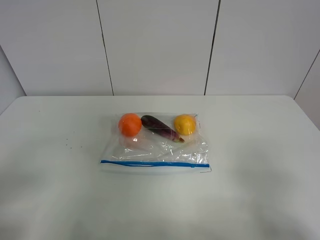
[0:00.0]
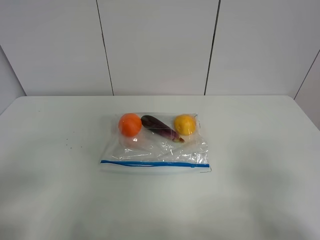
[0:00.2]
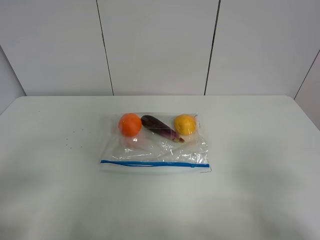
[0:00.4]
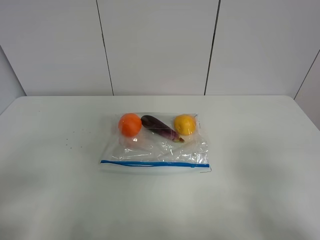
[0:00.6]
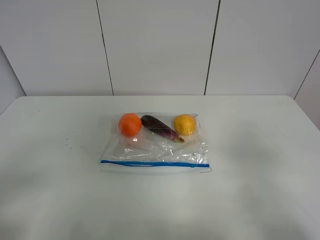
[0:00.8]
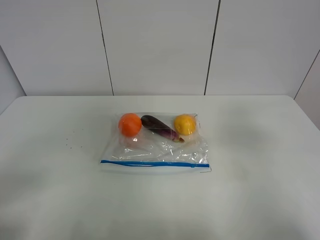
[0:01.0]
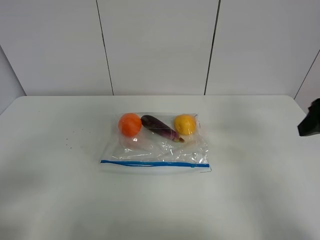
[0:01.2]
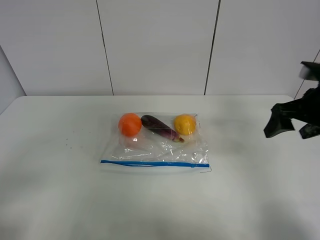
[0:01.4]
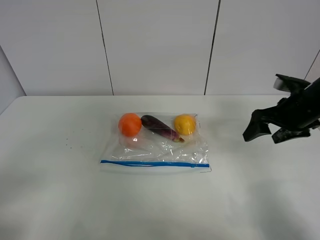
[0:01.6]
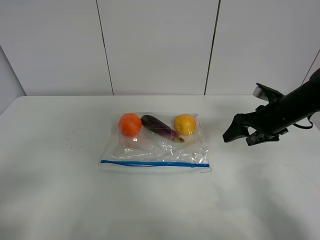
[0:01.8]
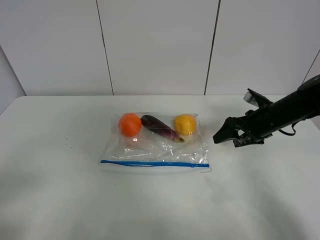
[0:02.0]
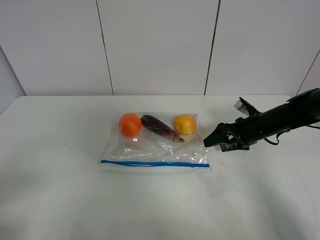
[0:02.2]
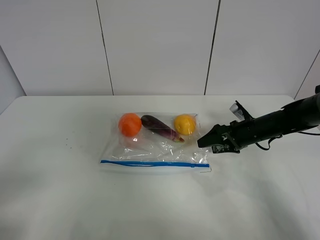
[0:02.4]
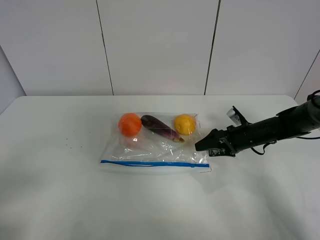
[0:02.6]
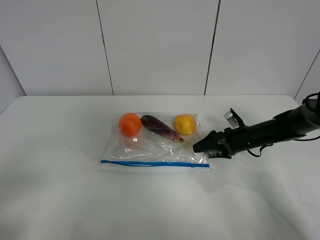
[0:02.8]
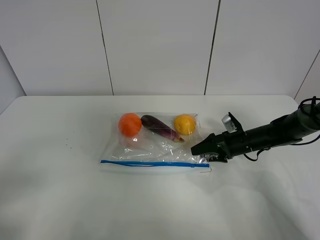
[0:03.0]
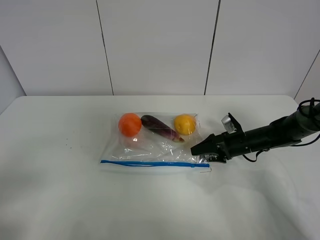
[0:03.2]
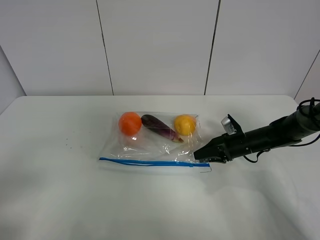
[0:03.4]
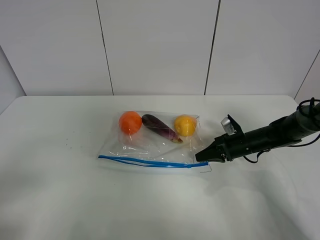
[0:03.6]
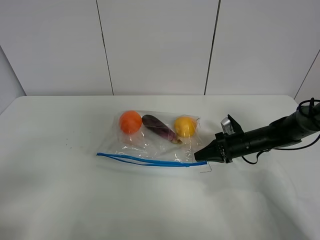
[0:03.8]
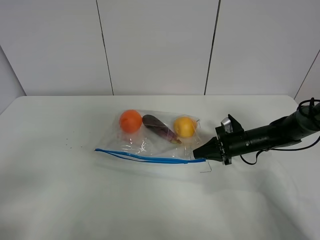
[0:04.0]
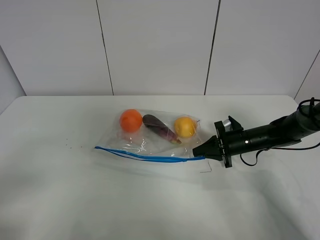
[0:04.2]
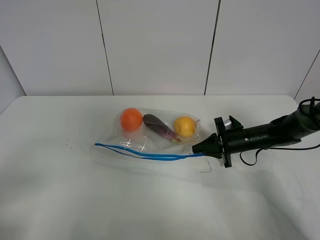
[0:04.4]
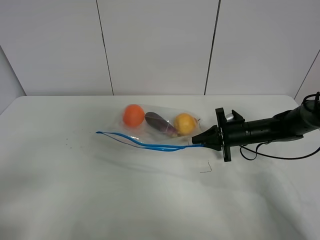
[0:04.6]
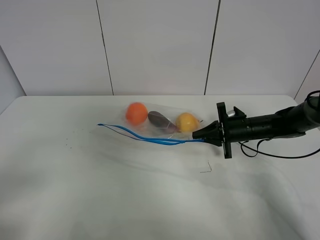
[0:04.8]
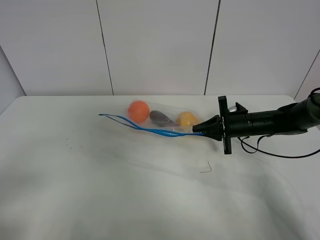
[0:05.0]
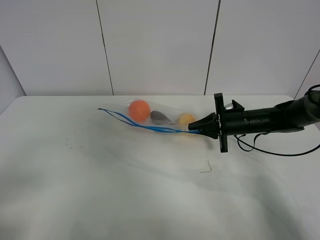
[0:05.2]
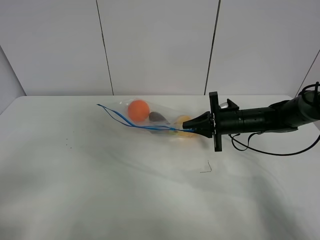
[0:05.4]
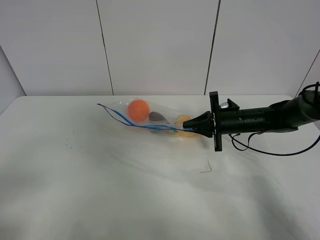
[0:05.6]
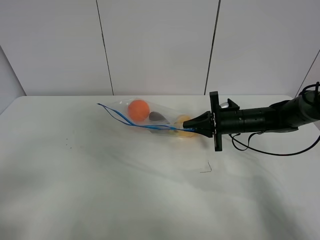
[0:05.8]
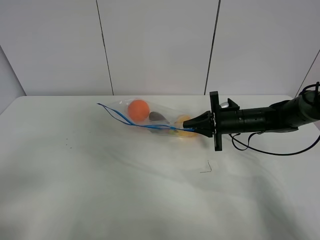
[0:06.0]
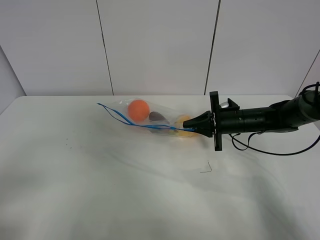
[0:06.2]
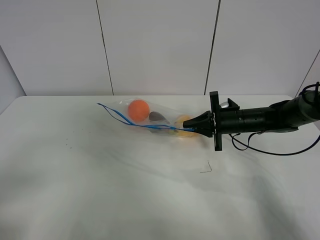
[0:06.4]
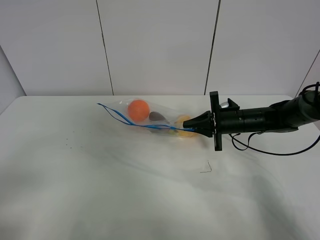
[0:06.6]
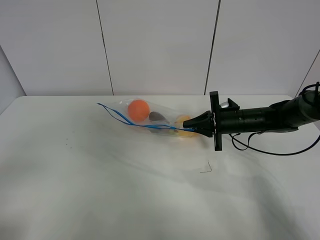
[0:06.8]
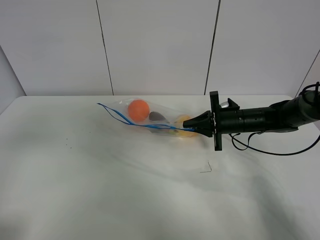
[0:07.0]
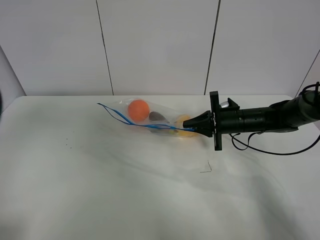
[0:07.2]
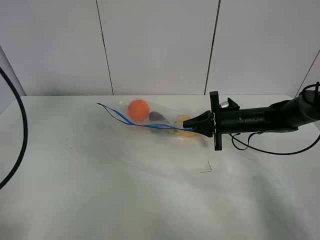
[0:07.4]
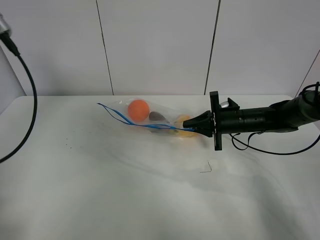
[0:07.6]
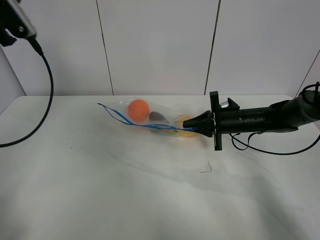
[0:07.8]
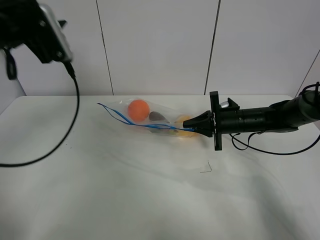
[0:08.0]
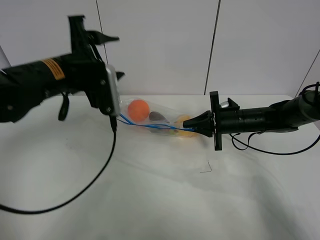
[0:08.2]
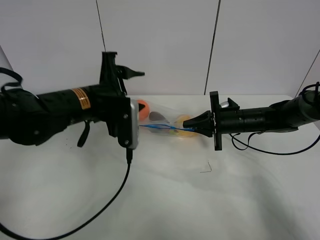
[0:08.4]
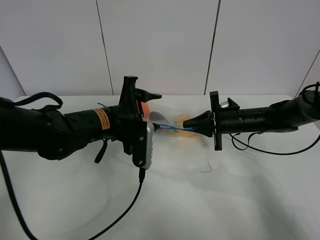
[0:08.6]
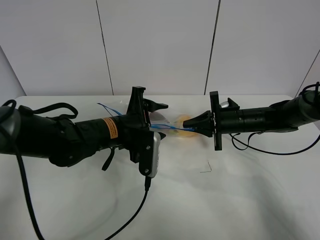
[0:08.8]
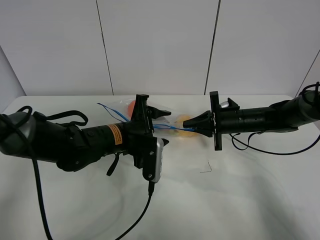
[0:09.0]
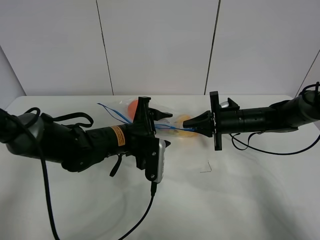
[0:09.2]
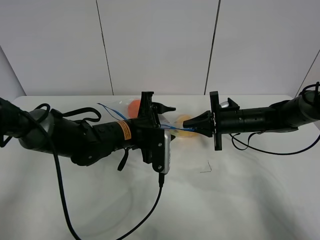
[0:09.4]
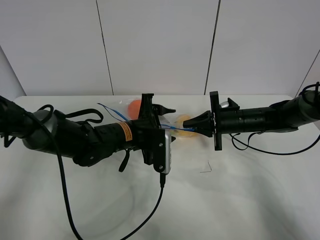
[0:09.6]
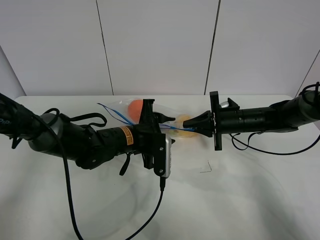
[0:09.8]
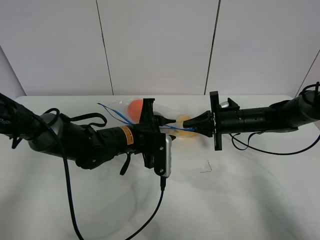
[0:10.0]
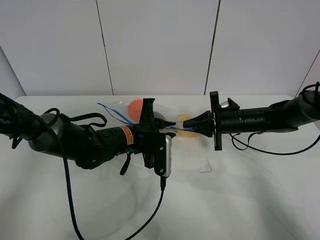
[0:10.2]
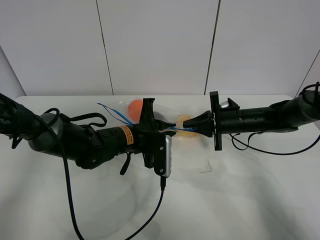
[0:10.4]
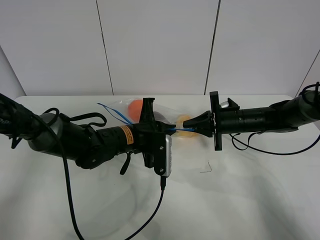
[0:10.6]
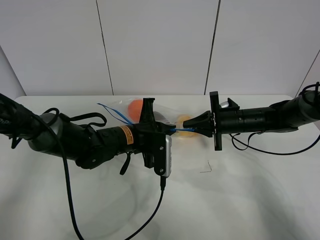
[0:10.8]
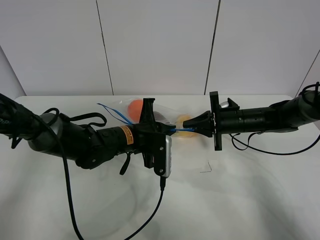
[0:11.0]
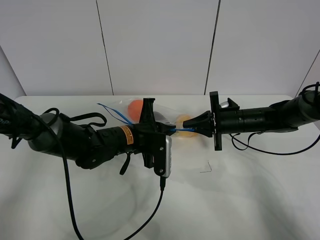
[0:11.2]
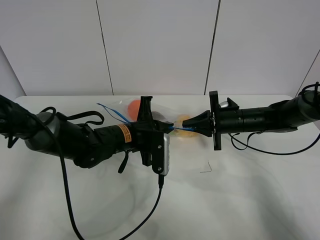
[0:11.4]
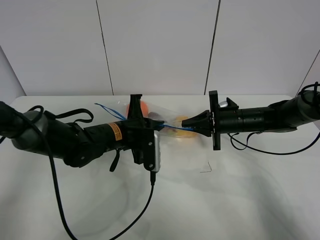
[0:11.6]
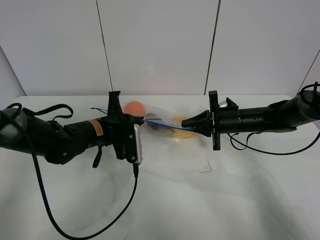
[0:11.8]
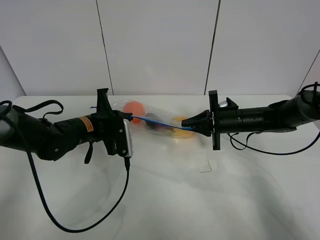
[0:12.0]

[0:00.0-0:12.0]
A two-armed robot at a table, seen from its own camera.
Step, 0:00.0 to 0:03.6: Grasp the fruit bag with right gripper.
Step, 0:03.8 to 0:05.6: Lift the fruit bag with your right gripper.
0:00.0 to 0:01.6: The right gripper travels forward by about 30 cm.
0:01.6 to 0:03.0: The right gripper shifts about 15 cm downward.
0:03.0 to 0:04.4: The right gripper closes.
0:04.4 to 0:06.0: The right gripper is displaced upward by roughly 5 cm.
0:06.0 to 0:07.6: The left gripper is displaced forward and upward by approximately 30 cm.
0:07.6 to 0:09.0: The left gripper moves downward and to the right, roughly 35 cm.
0:09.0 to 0:10.4: The left gripper closes its fingers.
0:10.4 to 0:12.0: The left gripper heads to the left, covering roughly 10 cm.

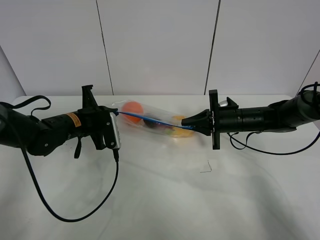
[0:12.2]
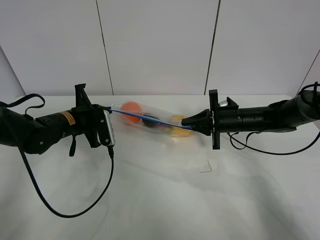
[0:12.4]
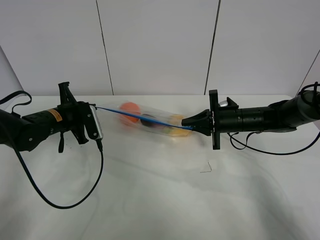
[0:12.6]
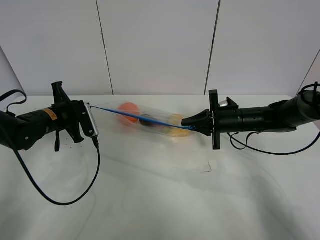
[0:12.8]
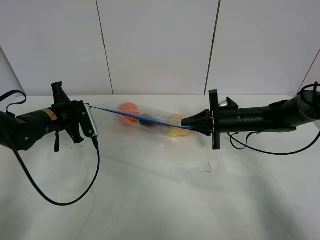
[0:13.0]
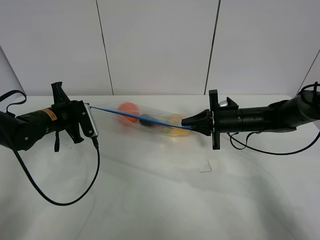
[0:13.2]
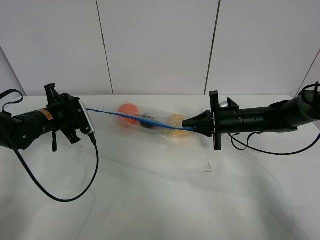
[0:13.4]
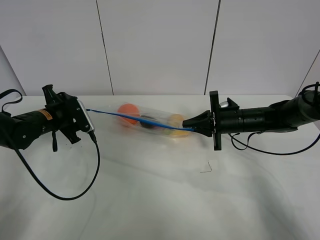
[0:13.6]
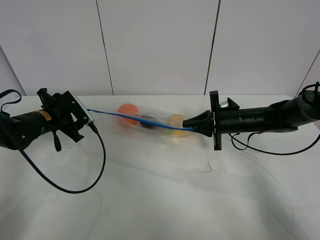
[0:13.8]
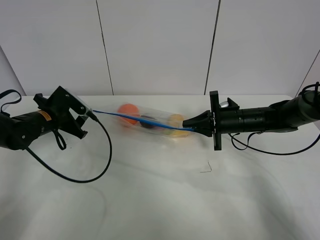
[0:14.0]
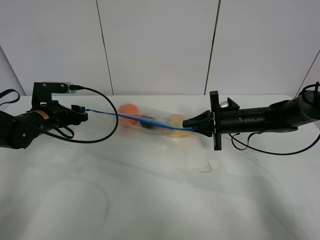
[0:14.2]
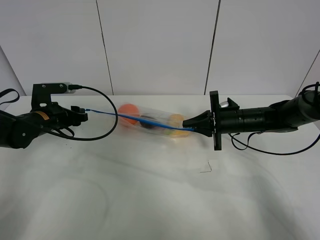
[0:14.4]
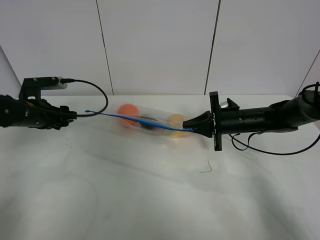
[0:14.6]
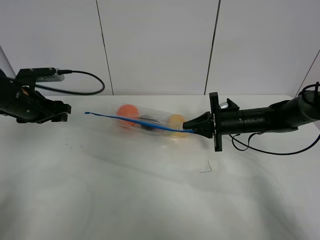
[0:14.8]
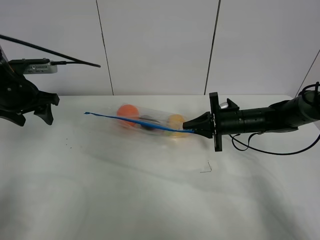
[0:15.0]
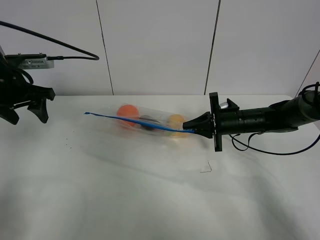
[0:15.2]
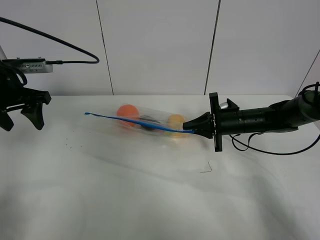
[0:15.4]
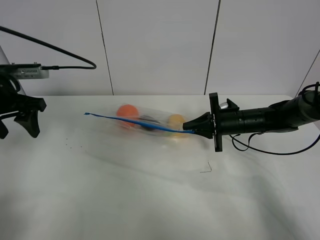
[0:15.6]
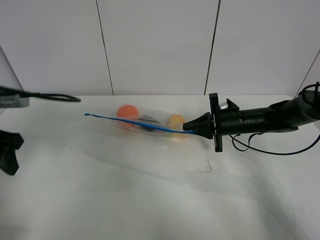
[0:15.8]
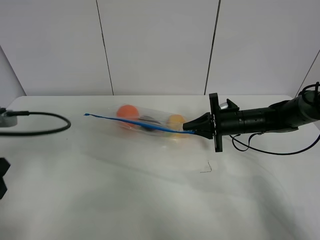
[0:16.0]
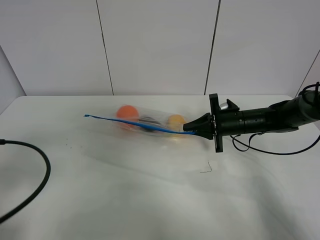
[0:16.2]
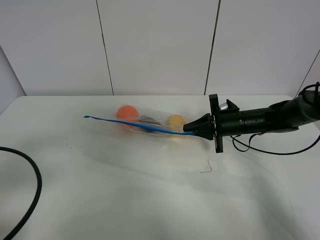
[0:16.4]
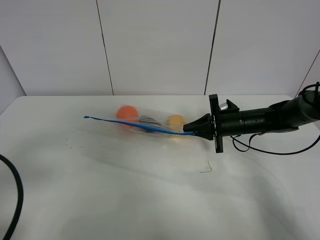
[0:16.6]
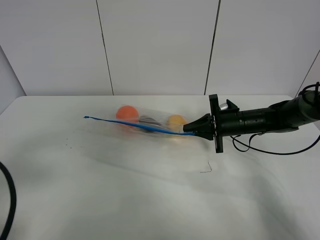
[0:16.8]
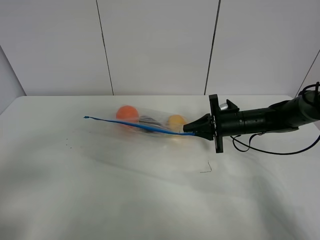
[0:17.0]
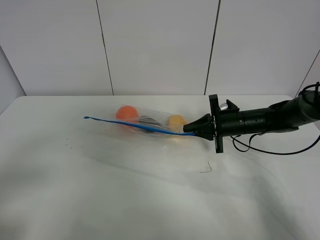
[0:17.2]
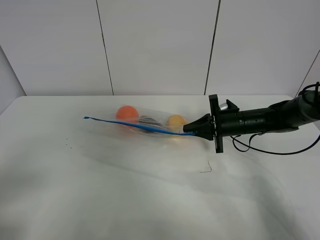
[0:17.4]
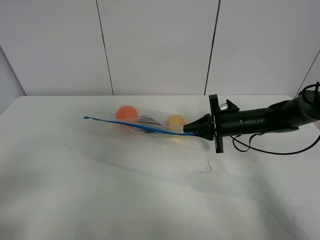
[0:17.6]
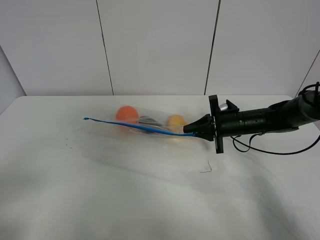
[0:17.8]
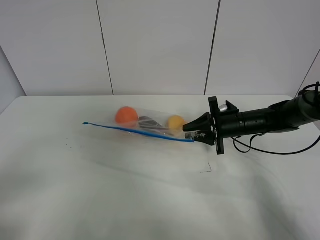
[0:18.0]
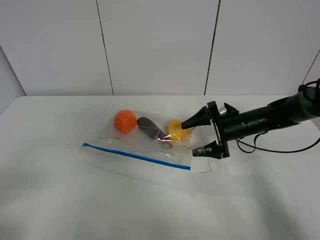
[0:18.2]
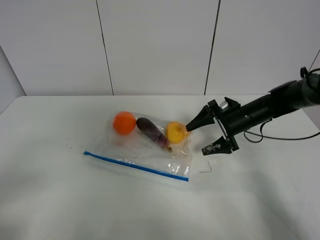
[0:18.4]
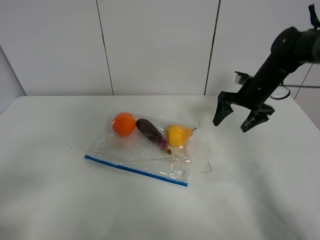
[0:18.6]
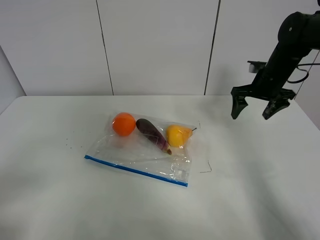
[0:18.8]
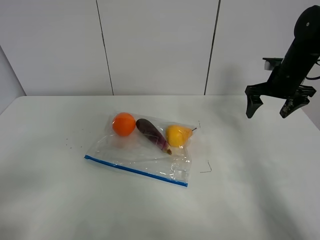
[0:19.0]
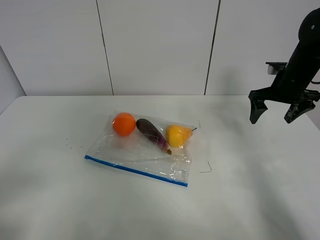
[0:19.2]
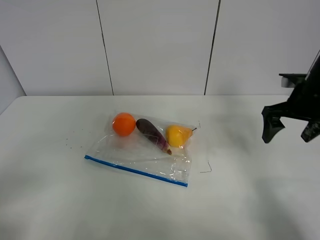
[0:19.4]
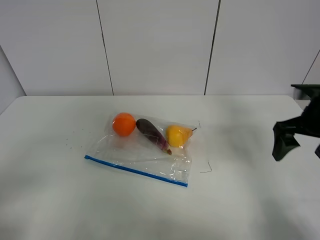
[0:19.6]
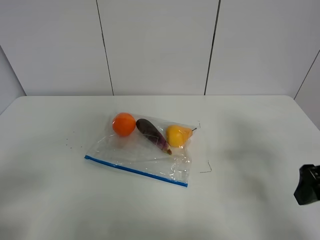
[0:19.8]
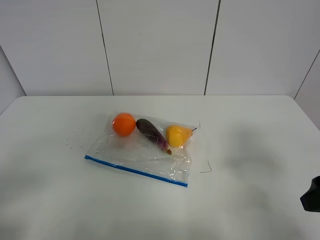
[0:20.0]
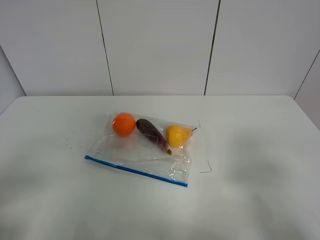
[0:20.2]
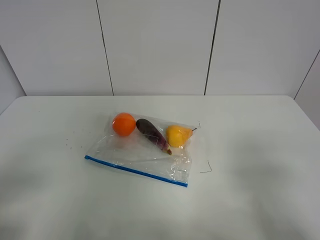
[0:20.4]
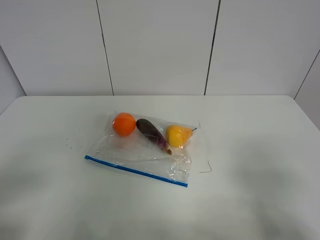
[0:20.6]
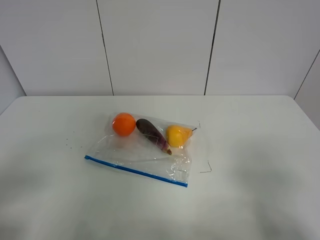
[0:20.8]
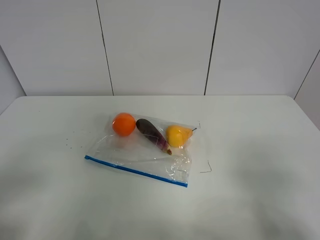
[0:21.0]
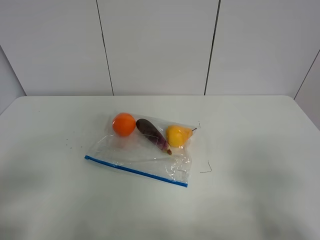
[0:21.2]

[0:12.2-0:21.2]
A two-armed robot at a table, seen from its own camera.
0:12.2 to 0:13.8: The left gripper travels to the left by some 10 cm, and opens its fingers.
0:13.8 to 0:15.2: The left gripper is displaced upward by about 15 cm.
0:15.2 to 0:16.6: The left gripper heads backward, covering roughly 25 cm.
0:16.6 to 0:18.2: The right gripper opens its fingers. Meanwhile the left gripper goes approximately 5 cm backward.
0:18.2 to 0:19.8: The right gripper heads backward, upward and to the right, covering some 25 cm.
0:19.8 to 0:21.2: The right gripper is displaced backward by approximately 15 cm.

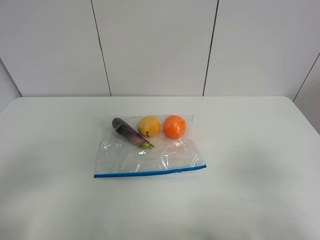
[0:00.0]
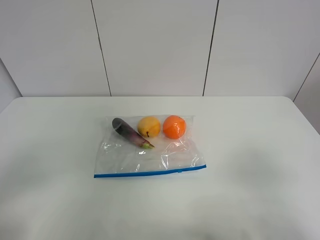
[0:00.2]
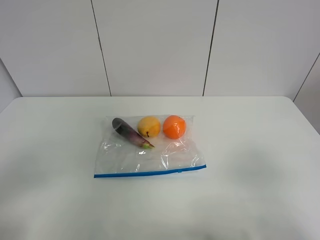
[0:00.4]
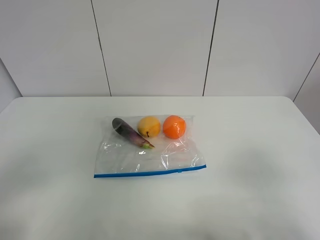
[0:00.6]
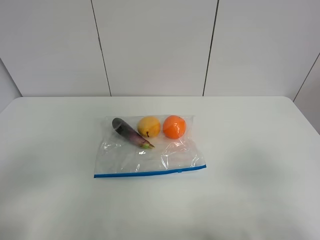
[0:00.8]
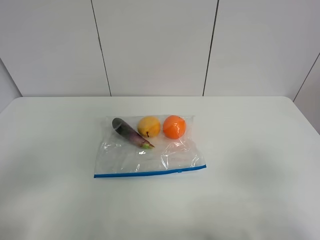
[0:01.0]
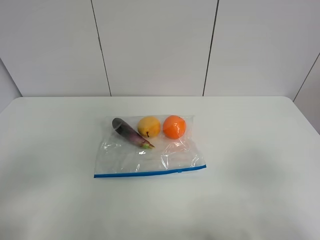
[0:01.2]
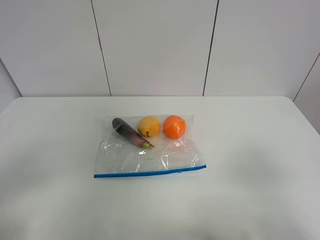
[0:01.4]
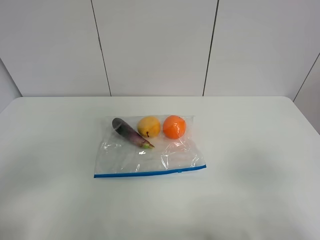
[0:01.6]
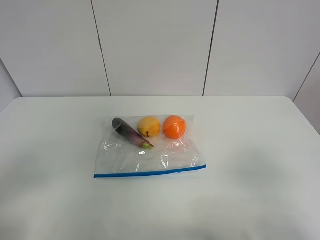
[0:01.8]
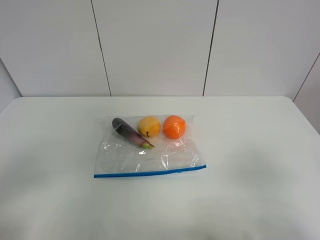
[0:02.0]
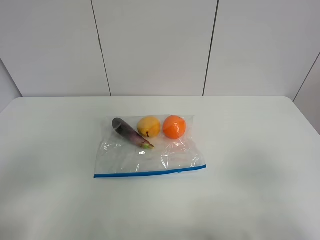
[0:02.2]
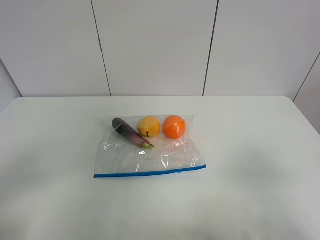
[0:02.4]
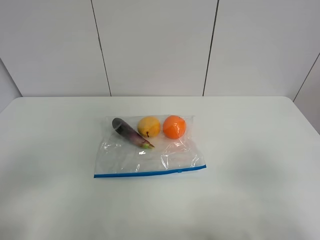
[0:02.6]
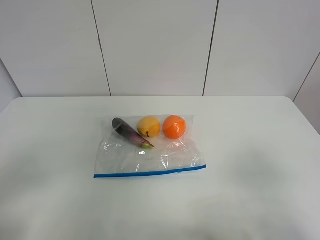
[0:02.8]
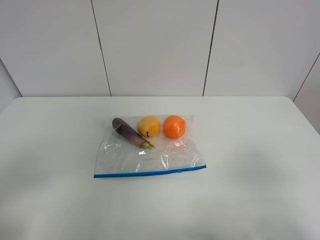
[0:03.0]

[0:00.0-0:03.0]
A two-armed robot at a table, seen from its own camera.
0:00.0 to 0:03.0: Both grippers stay about where they are.
